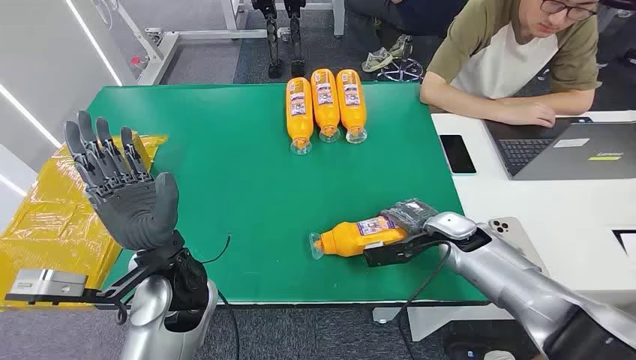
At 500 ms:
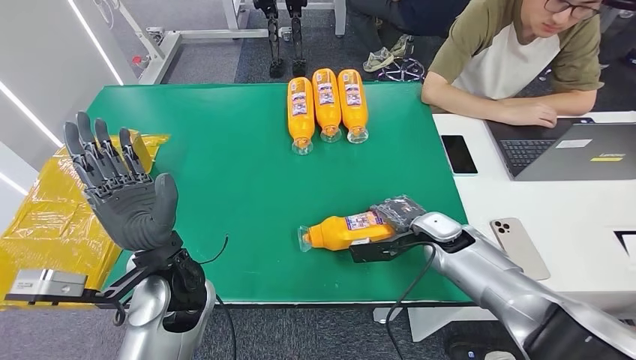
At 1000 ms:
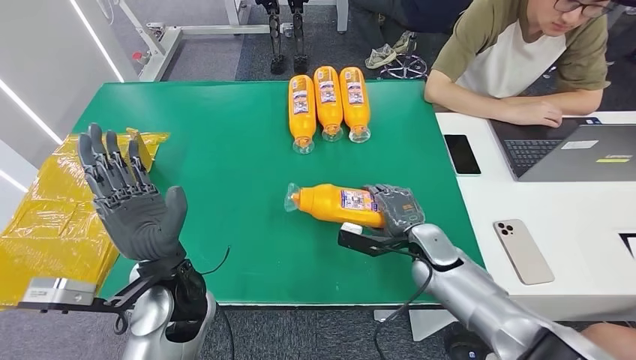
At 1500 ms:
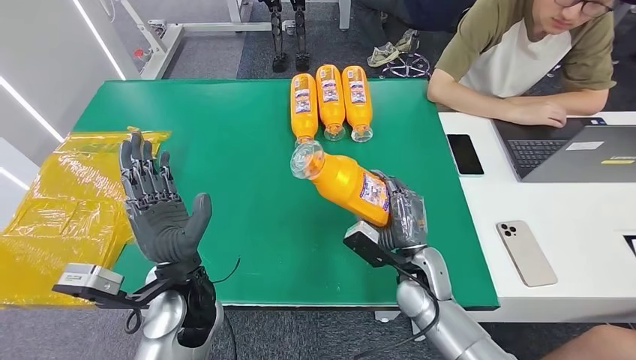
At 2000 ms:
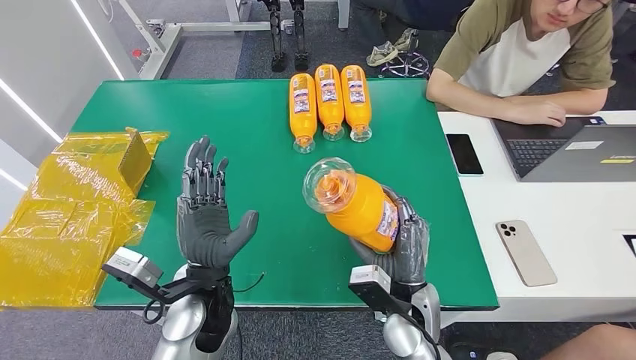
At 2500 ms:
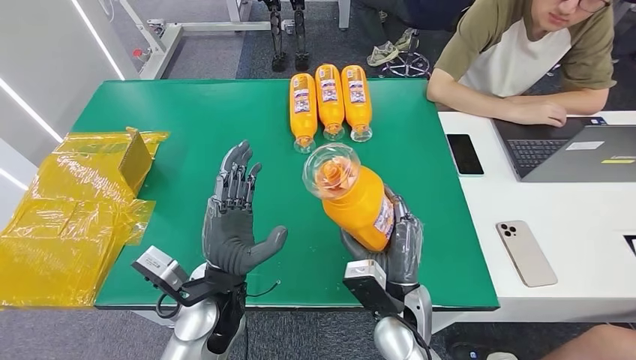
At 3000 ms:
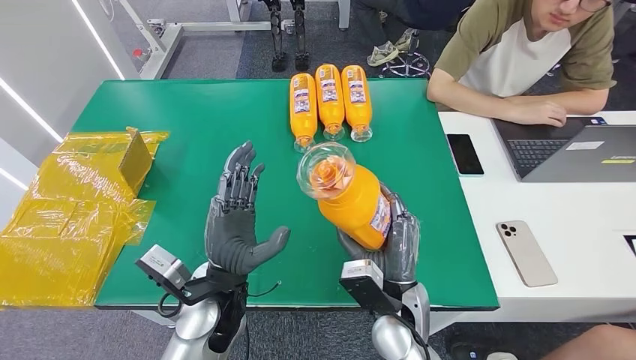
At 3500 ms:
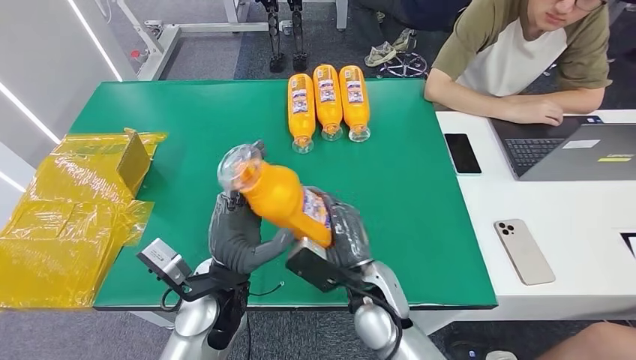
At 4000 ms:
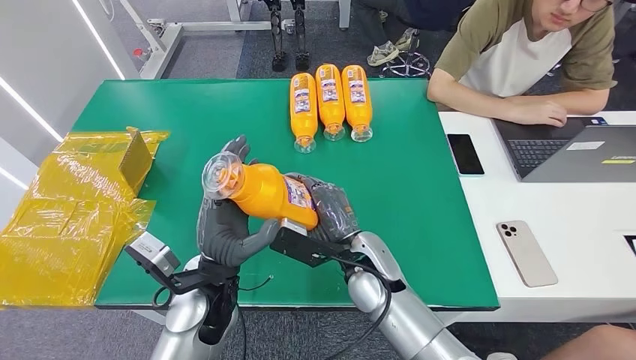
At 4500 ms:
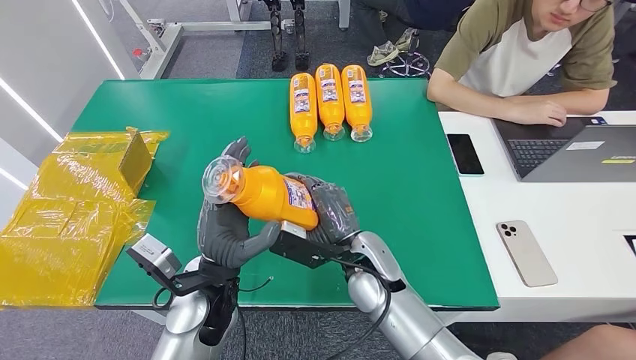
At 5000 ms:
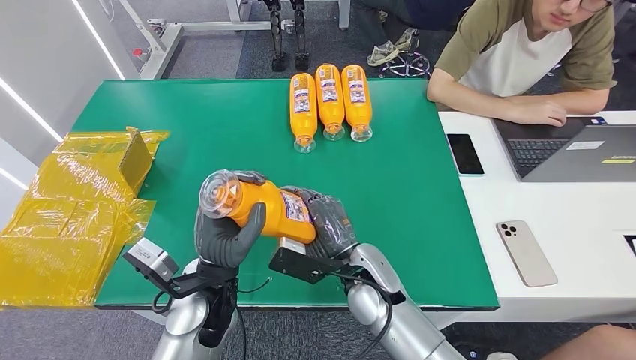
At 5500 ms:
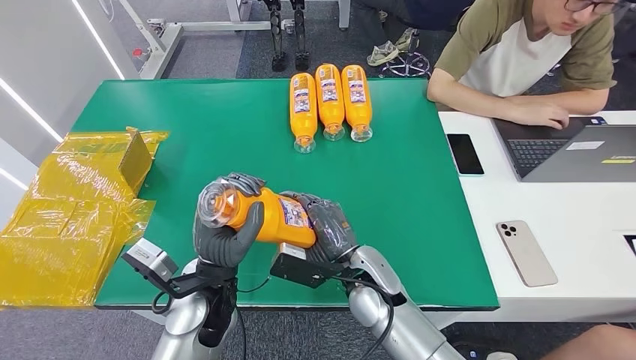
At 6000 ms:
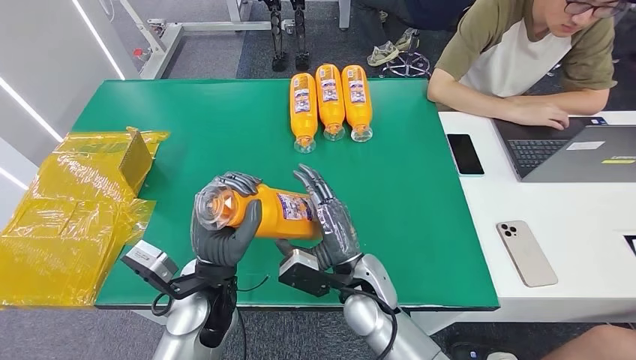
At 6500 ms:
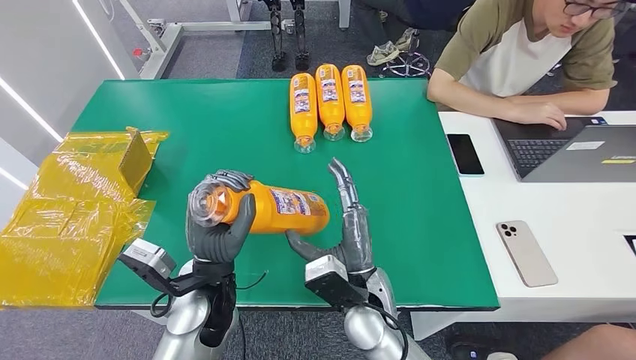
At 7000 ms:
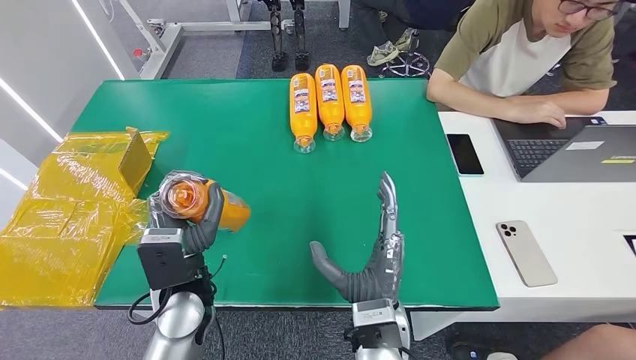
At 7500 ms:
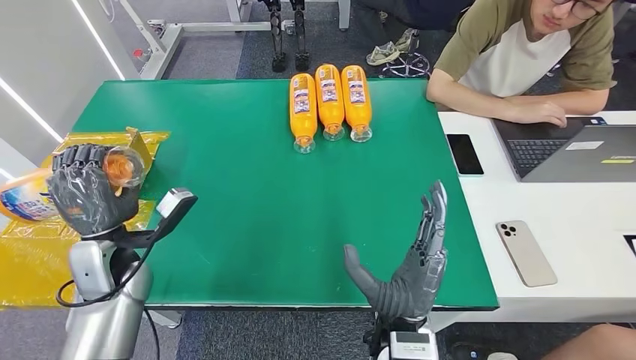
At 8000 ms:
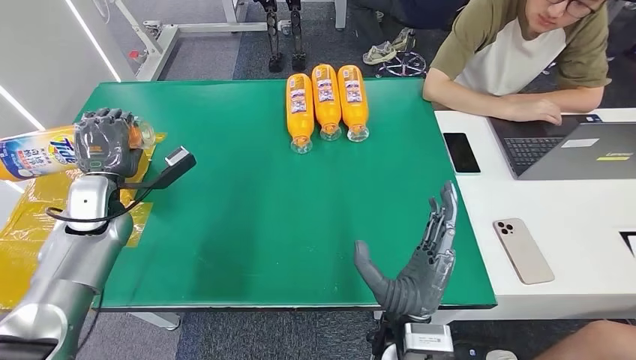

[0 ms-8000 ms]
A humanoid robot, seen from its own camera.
Step, 0 ms to 4000 ms: Pick up the bottle from the table.
Step, 4500 ms to 8000 ms: Turn the bottle to the front side.
2000 ms to 4000 ms: The right hand is displaced to the left and forward by some 10 cm.
4000 ms to 6000 ms: The hands make only small movements.

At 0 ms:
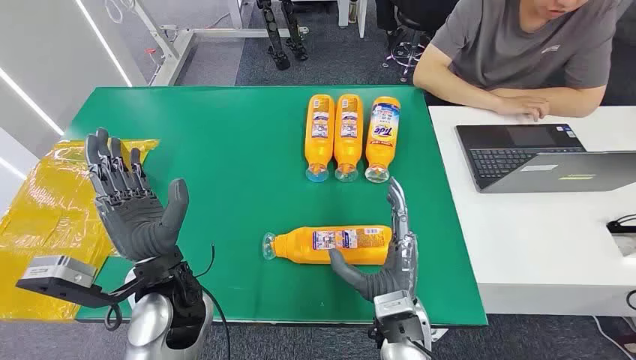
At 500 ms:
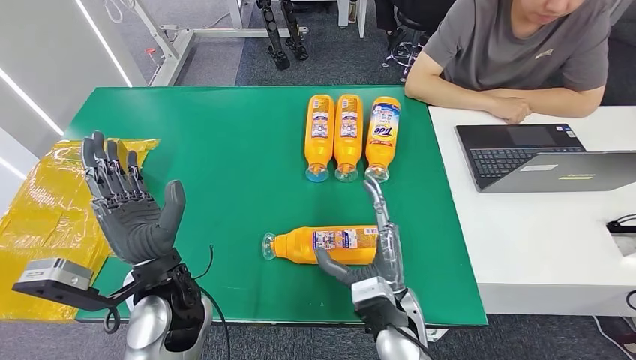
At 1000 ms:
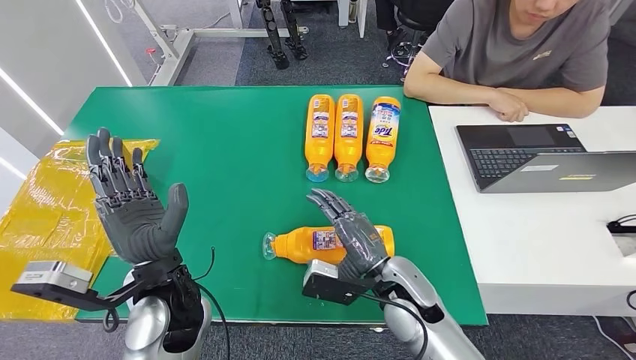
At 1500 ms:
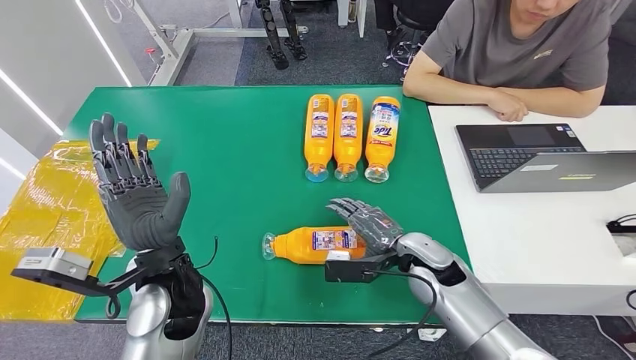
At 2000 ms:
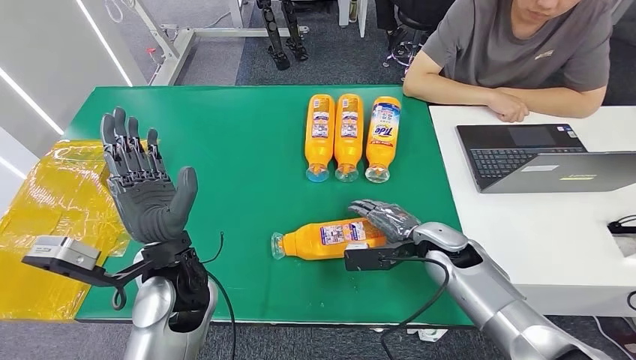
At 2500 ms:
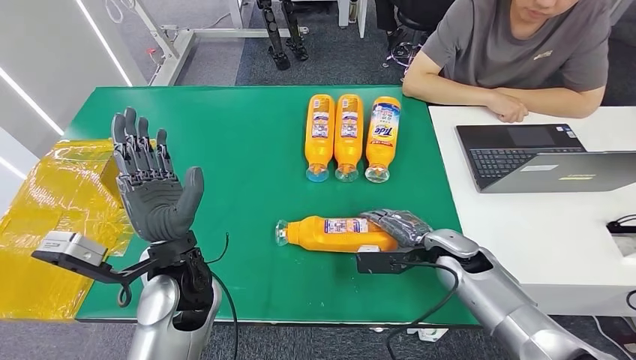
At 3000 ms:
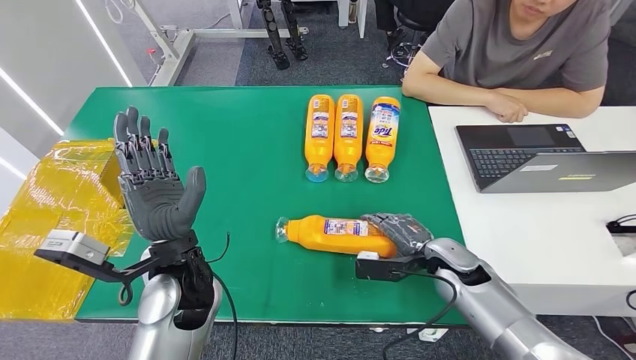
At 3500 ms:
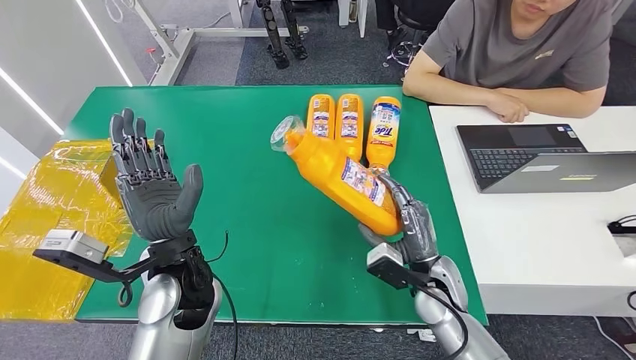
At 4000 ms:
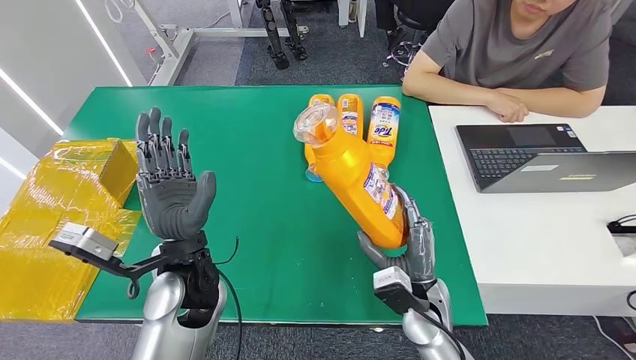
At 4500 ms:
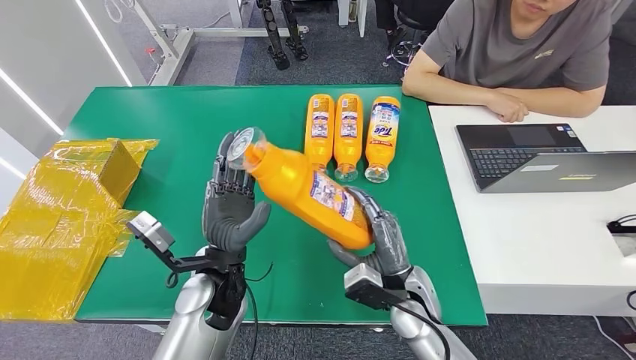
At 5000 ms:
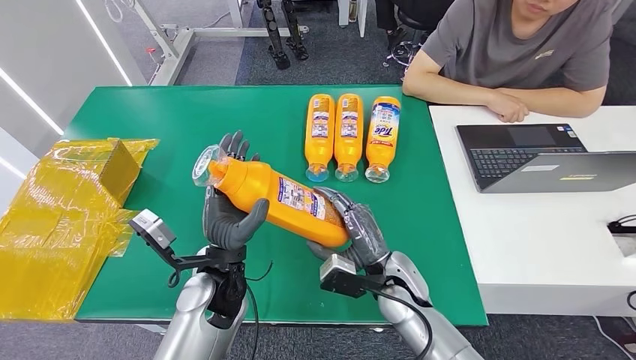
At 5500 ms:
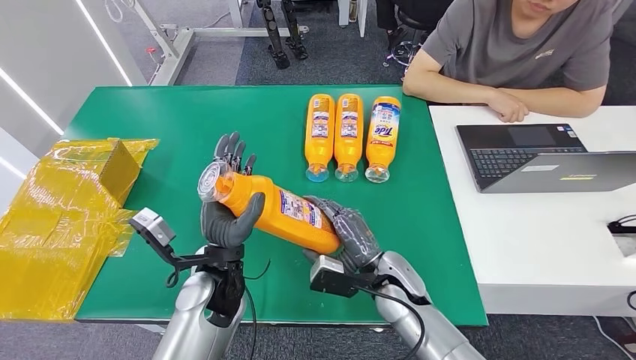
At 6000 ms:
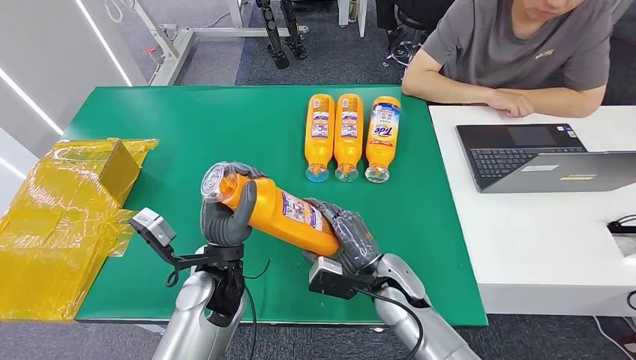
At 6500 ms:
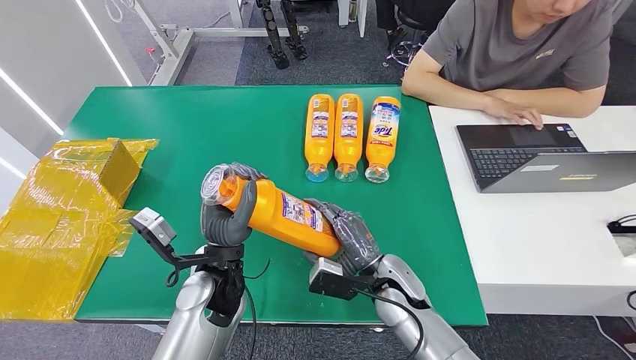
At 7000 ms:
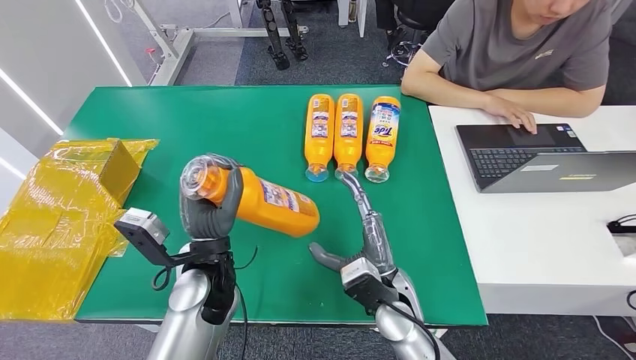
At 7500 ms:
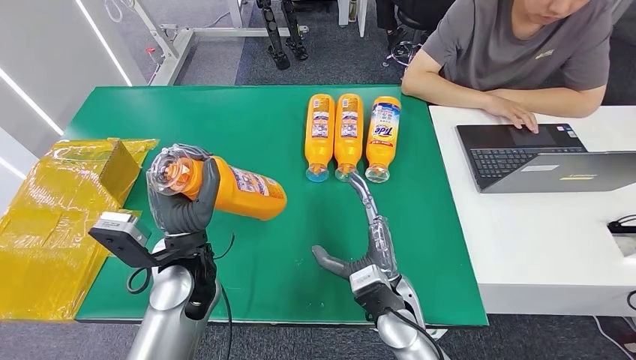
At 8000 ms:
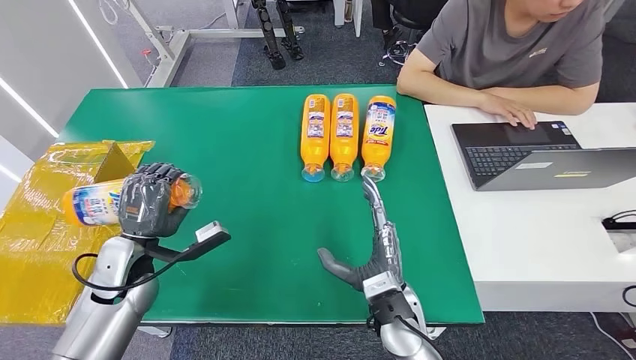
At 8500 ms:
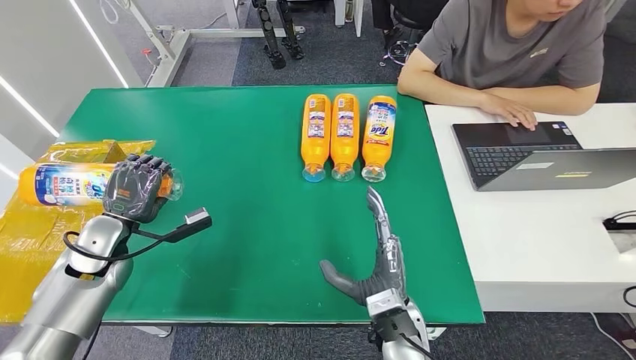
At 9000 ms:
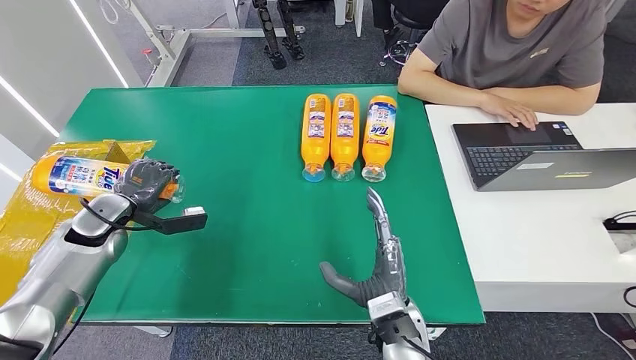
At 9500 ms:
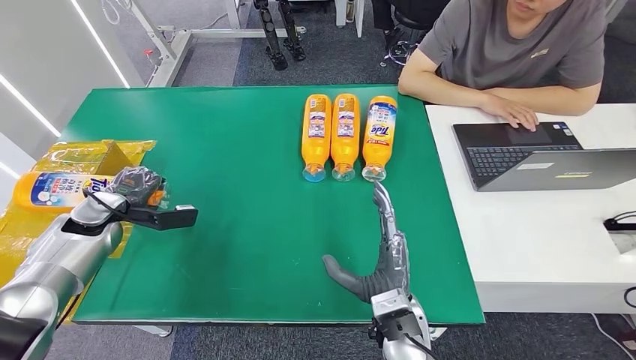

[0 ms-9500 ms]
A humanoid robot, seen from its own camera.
Step, 0 ms to 3500 ms: Pick up the bottle from the table.
2000 ms to 4000 ms: The right hand moves backward and to the left, approximately 10 cm.
4000 ms to 5500 ms: The right hand ends up approximately 5 cm from where it was. Meanwhile the left hand shifts about 5 cm downward.
5500 ms to 7500 ms: The right hand changes place by approximately 5 cm. Meanwhile the left hand changes place by some 5 cm.

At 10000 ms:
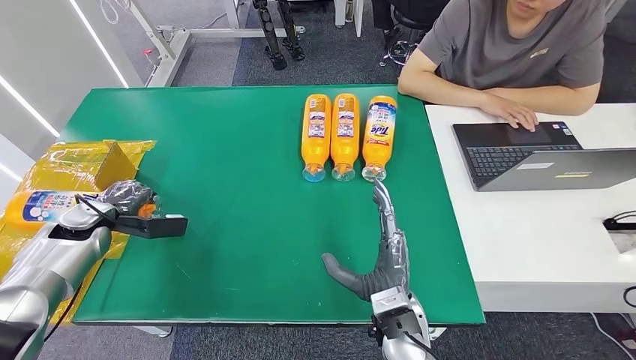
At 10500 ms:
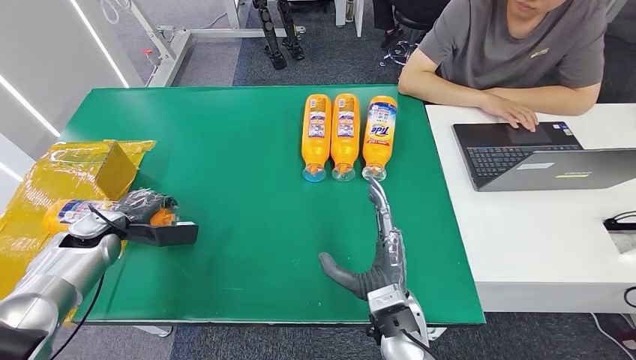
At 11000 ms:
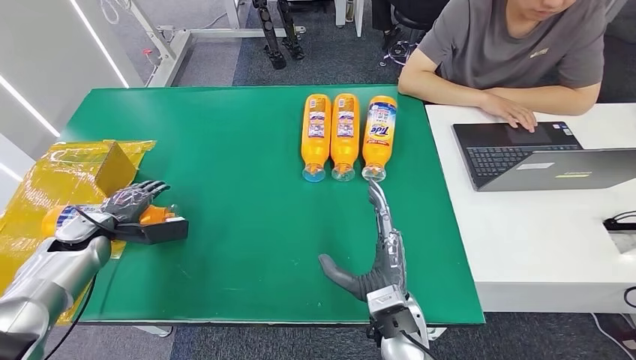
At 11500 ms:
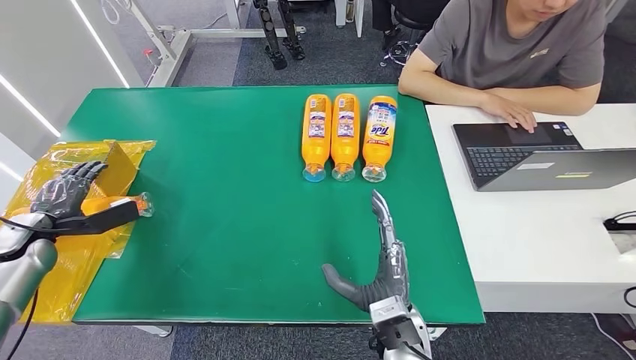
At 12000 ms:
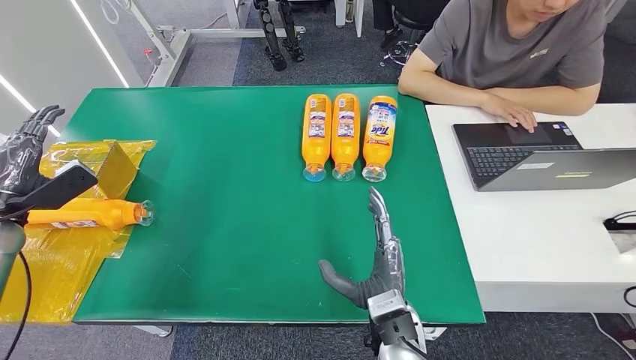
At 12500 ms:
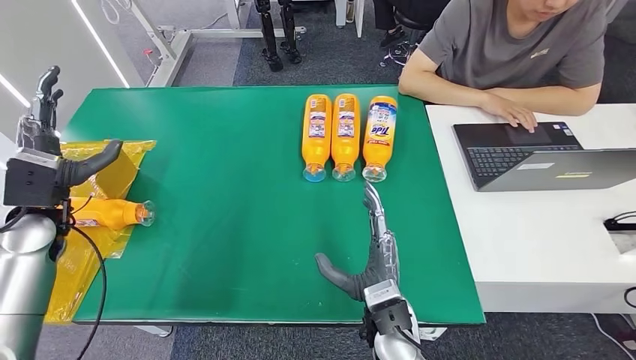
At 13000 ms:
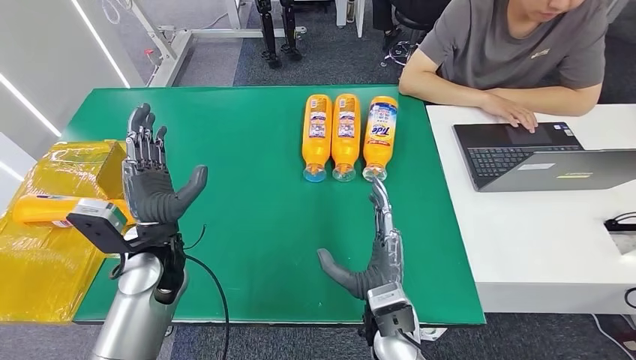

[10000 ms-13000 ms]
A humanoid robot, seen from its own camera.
Step, 10000 ms to 13000 ms: Turn the bottle to the front side.
10000 ms to 11500 ms: The left hand travels to the left by about 10 cm.
11500 ms to 13000 ms: The left hand is displaced to the right by about 30 cm.
